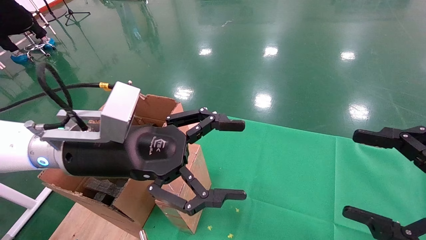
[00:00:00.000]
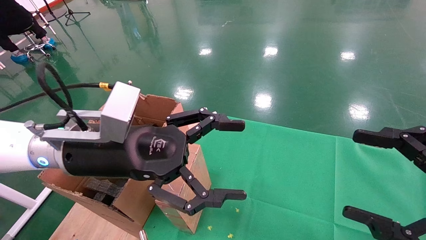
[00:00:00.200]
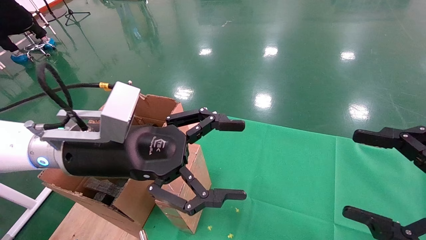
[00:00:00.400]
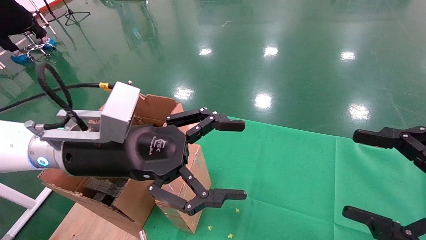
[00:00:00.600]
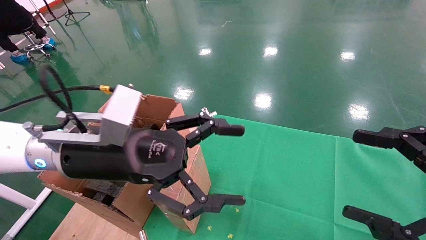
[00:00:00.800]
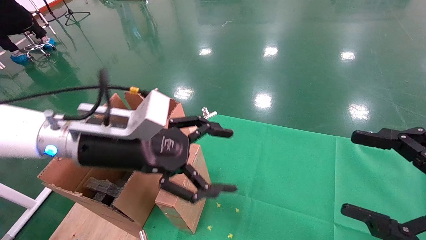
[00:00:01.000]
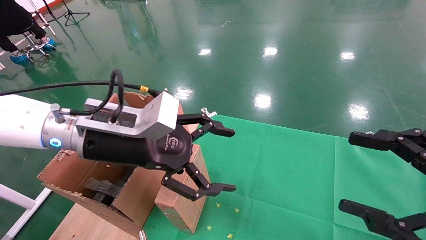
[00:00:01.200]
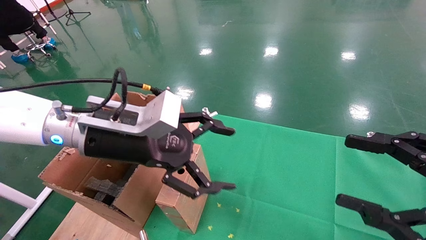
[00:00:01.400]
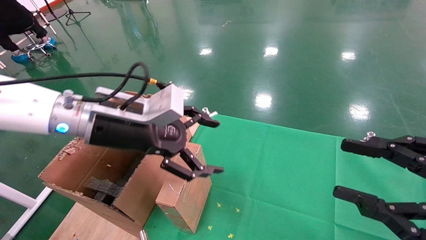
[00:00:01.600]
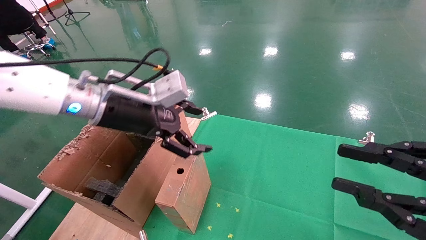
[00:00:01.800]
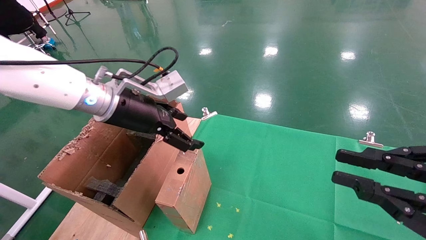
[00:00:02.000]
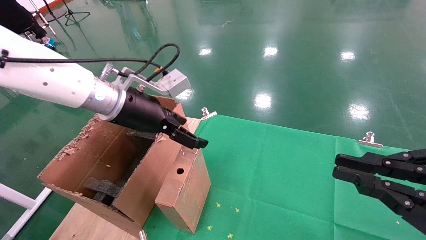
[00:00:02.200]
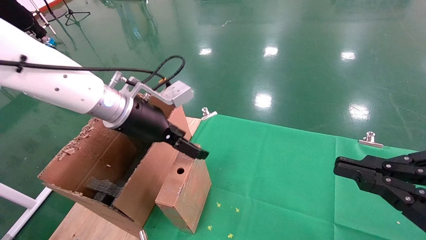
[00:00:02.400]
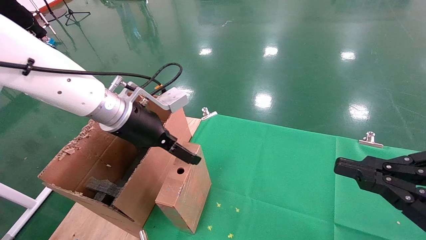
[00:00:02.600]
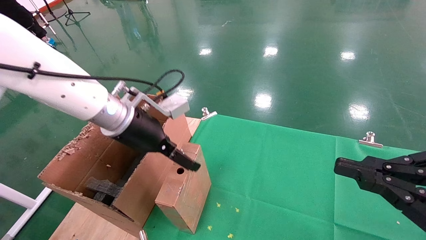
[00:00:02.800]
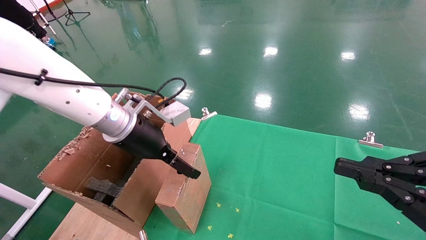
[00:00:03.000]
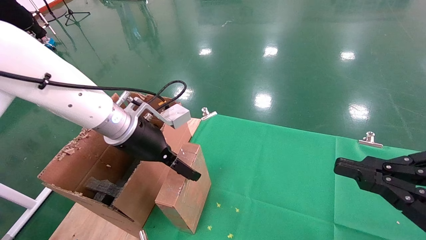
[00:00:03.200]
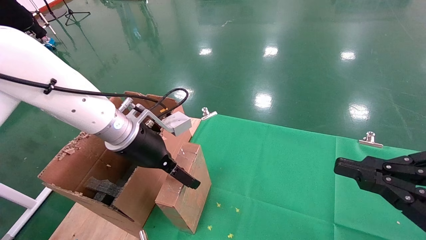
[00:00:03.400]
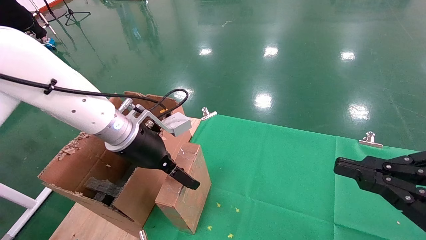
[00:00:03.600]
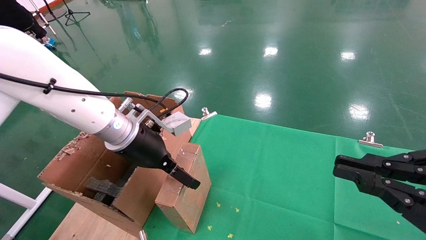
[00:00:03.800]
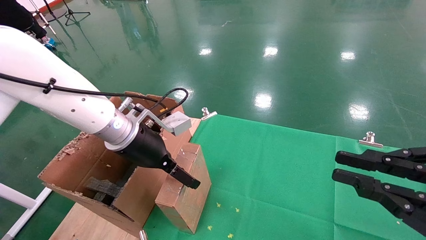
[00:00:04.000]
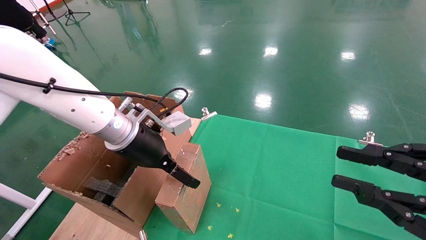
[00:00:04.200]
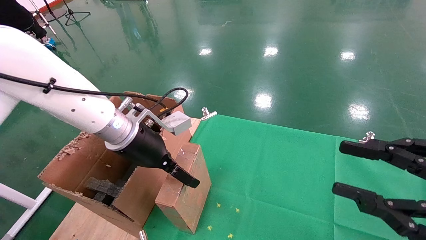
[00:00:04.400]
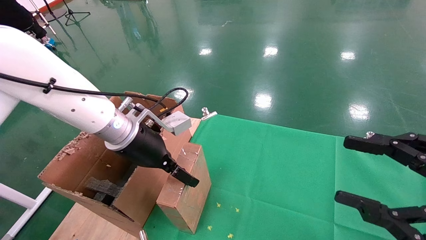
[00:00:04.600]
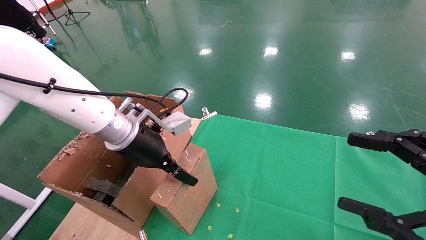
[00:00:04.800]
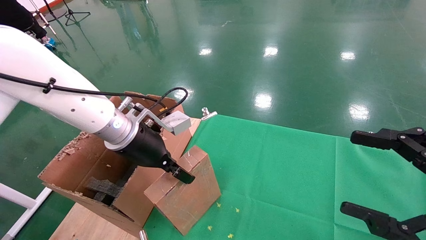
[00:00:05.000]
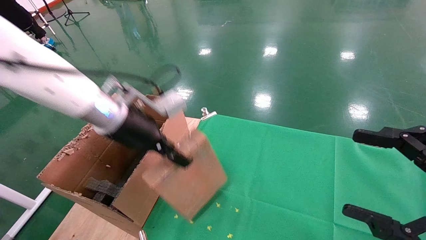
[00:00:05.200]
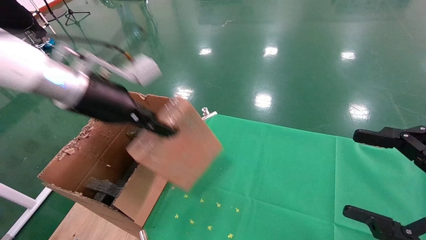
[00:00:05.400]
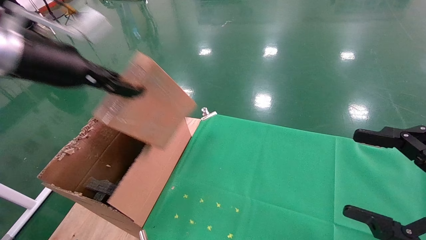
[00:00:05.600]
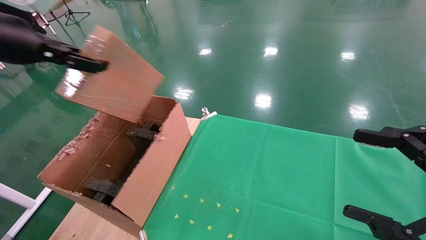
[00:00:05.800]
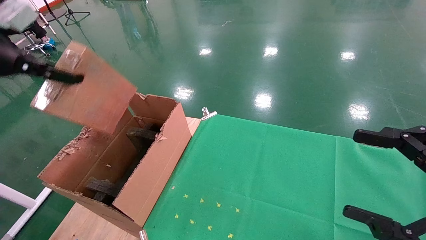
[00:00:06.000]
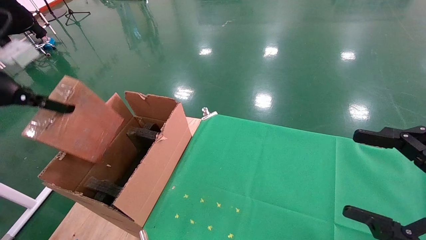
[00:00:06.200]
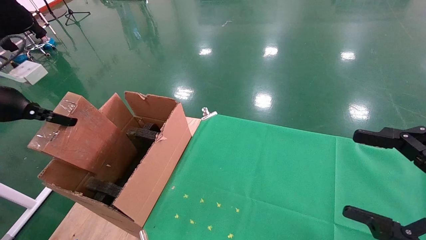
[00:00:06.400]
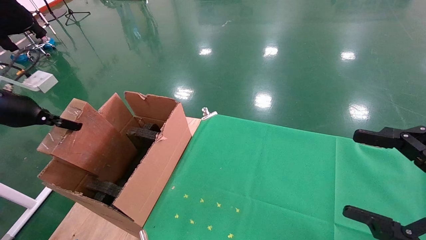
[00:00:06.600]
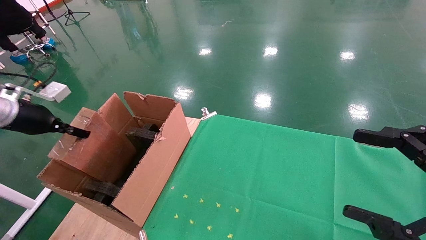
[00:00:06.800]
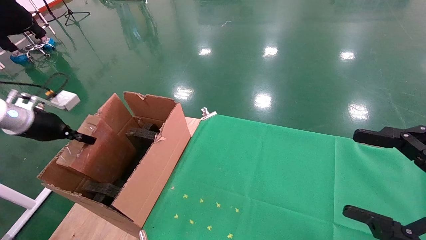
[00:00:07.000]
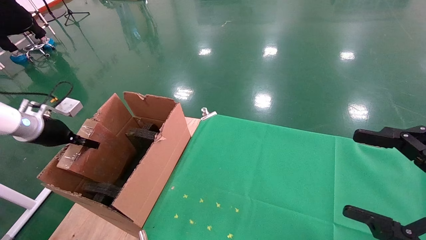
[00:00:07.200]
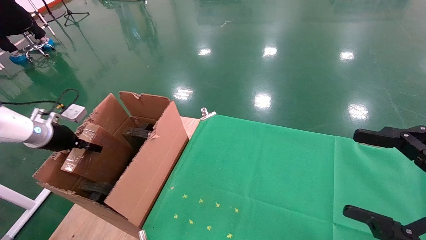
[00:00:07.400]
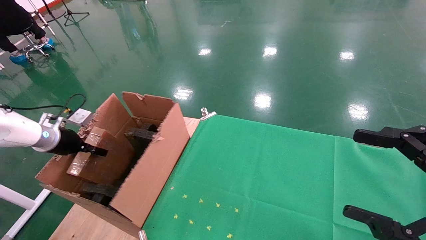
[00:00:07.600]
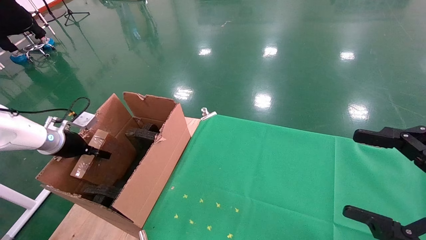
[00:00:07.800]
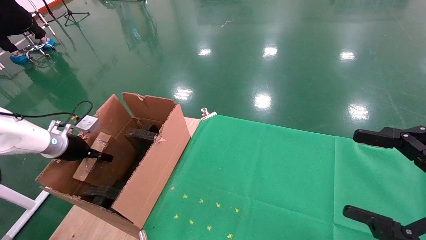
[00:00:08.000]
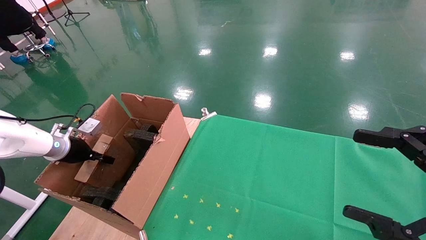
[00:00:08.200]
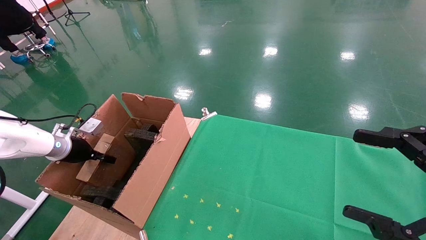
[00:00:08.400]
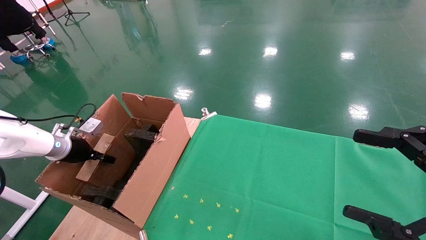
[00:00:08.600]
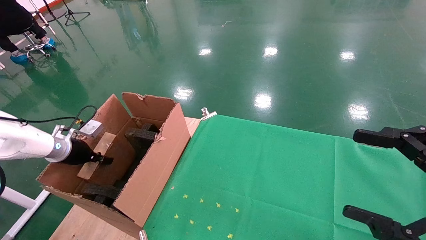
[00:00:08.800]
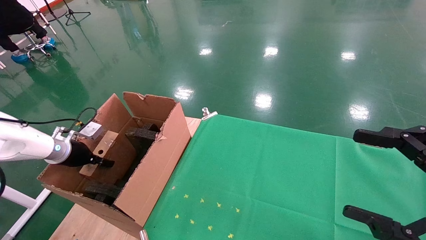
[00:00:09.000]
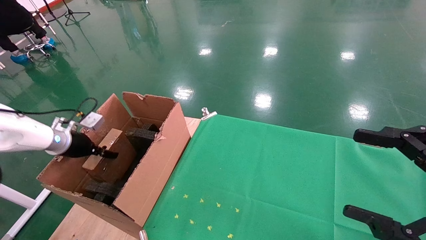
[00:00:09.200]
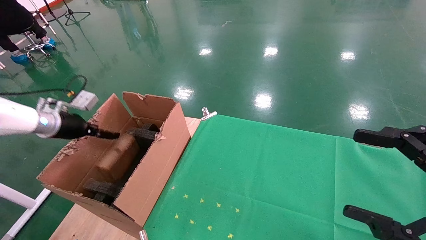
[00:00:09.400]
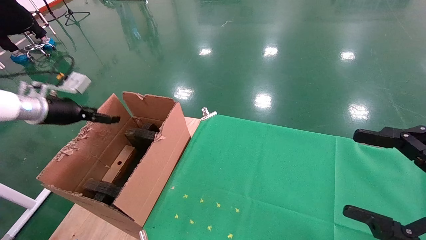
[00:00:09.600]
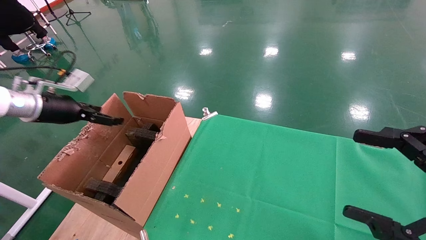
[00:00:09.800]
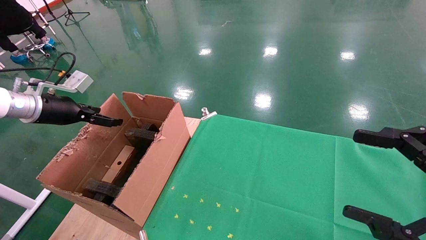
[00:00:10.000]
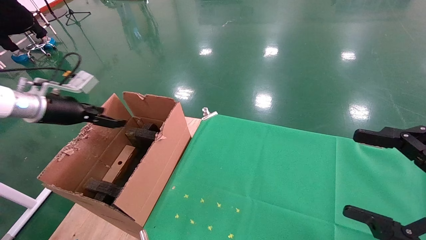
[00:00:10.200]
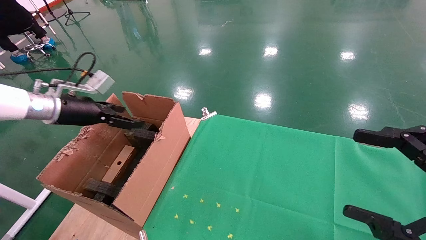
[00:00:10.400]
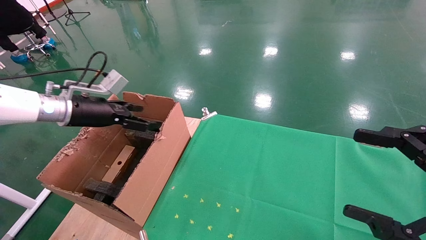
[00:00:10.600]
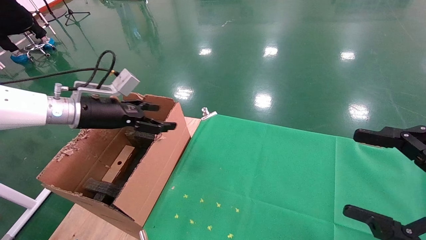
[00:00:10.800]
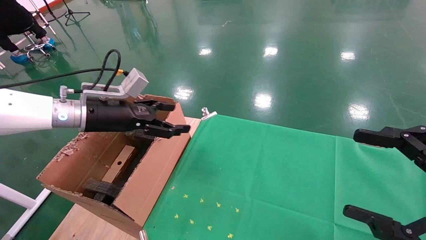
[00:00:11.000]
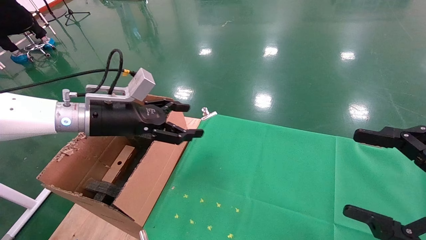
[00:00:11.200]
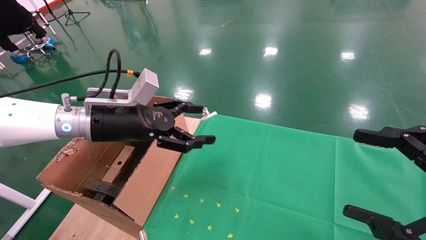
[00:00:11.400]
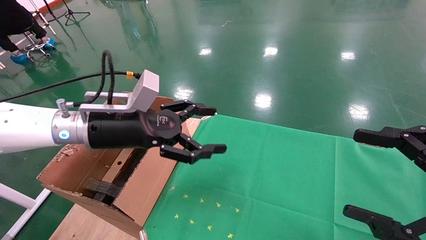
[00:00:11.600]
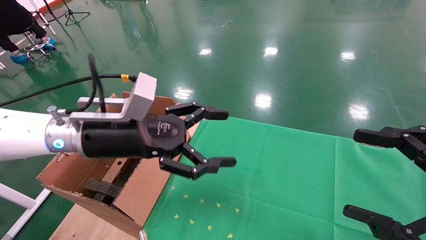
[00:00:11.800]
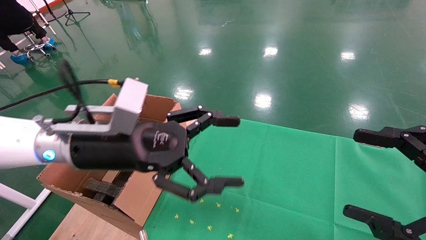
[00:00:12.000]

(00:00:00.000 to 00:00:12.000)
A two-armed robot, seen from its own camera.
Task of the whole recording: using a robotic arm to pick up a cardboard box and palace it the carton.
Step, 00:00:01.000 - 00:00:04.800: Pick up the mouse and the power cord paper box.
Step, 00:00:05.000 - 00:00:09.200: Place the mouse and the power cord paper box into the container.
00:00:00.000 - 00:00:01.600: The left gripper is displaced forward by roughly 5 cm. The right gripper closes.
00:00:01.600 - 00:00:03.000: The right gripper closes.
00:00:03.000 - 00:00:04.400: The right gripper opens up.
00:00:04.400 - 00:00:06.000: The left gripper travels to the left and upward by about 25 cm, and closes, while the right gripper opens up.
00:00:06.000 - 00:00:07.600: The left gripper goes about 25 cm downward and forward.
00:00:07.600 - 00:00:09.000: The grippers stay close to where they were, moving slightly.
00:00:09.000 - 00:00:10.400: The left gripper travels upward and to the right by some 15 cm, and opens its fingers.
00:00:10.400 - 00:00:12.000: The left gripper is displaced to the right and backward by roughly 25 cm.

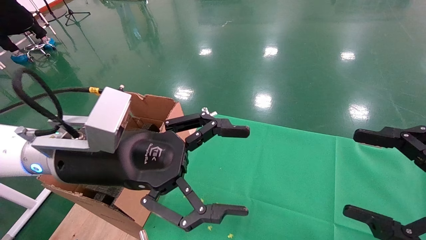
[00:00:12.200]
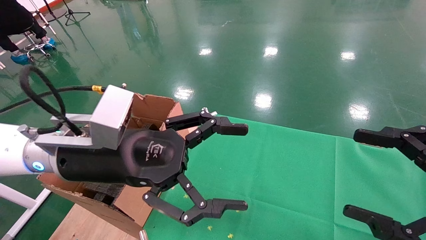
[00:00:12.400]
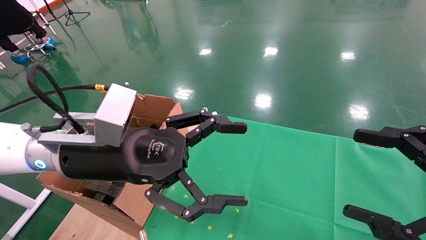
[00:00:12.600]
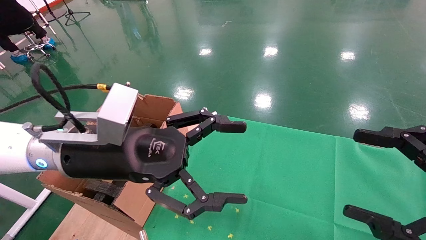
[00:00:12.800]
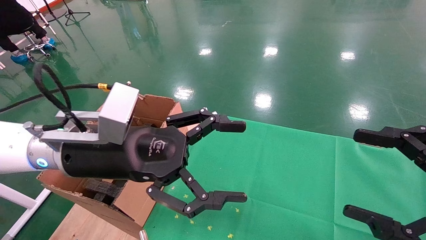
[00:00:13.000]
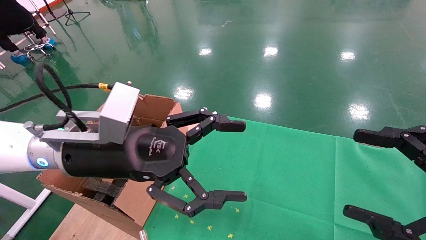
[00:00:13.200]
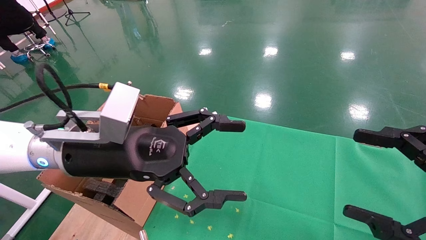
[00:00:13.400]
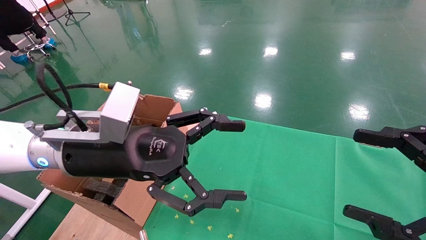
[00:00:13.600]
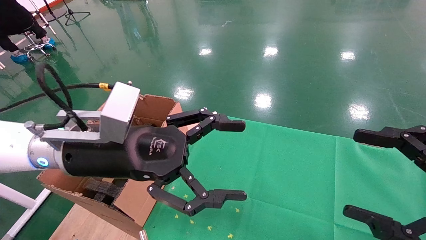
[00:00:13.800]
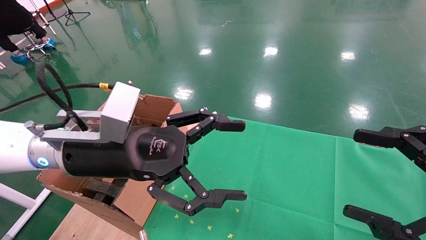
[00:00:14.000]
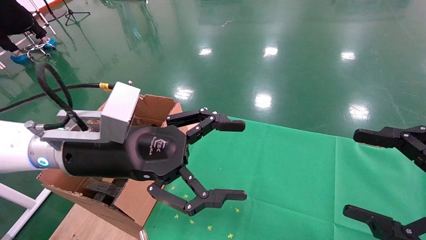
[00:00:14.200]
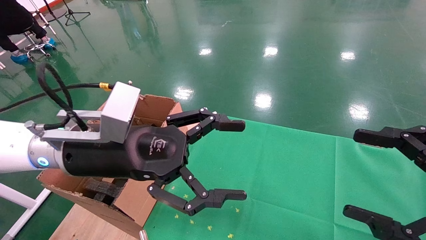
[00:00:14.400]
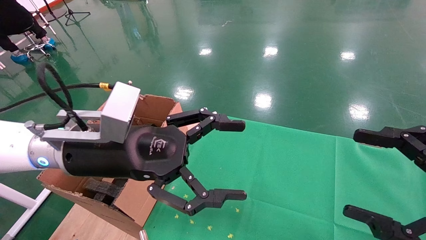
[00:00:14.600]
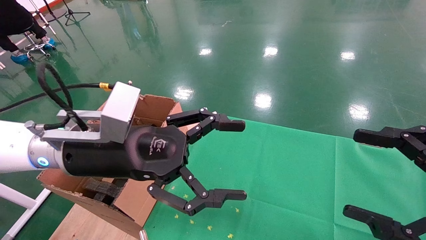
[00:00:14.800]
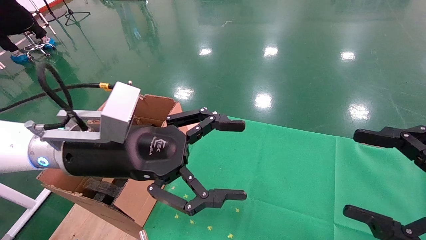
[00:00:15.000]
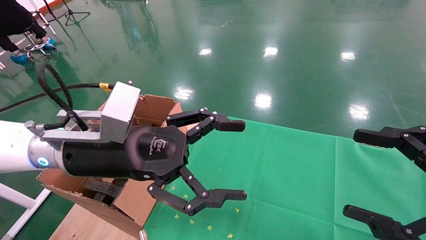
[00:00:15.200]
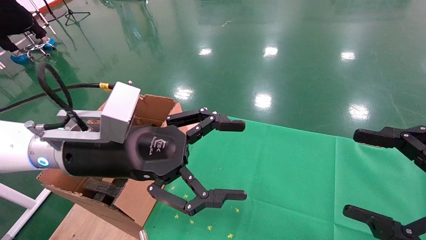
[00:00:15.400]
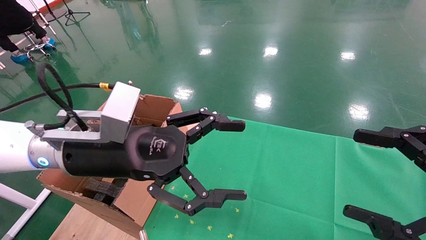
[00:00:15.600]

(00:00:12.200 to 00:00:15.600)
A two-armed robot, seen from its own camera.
Task of the whole recording: using a robotic arm to pick up a cardboard box and palace it the carton.
00:00:12.200 - 00:00:15.600: Both grippers stay put.
